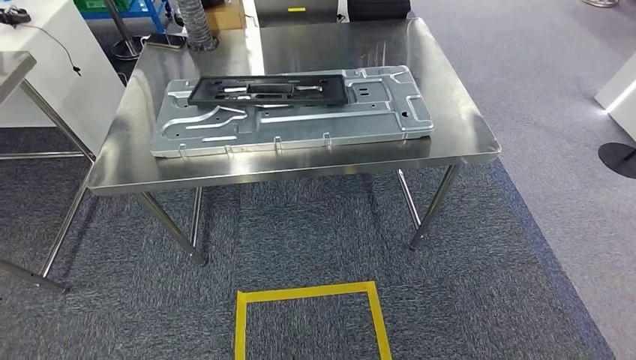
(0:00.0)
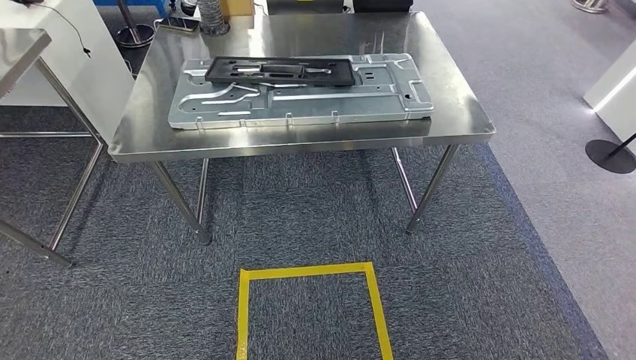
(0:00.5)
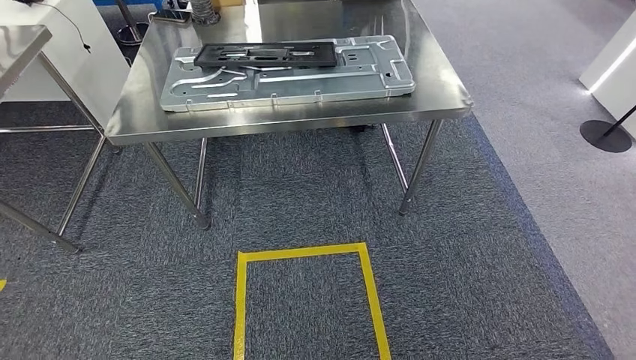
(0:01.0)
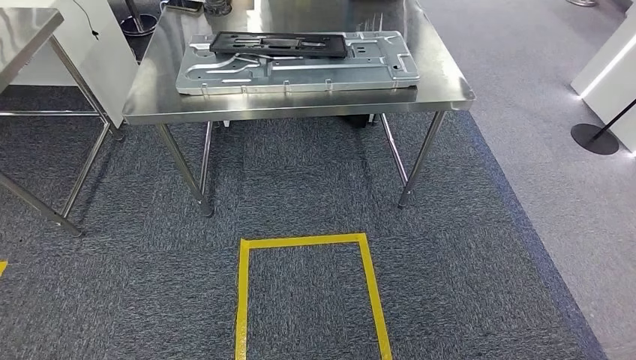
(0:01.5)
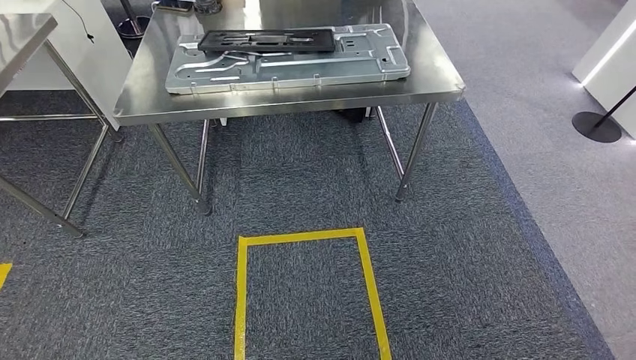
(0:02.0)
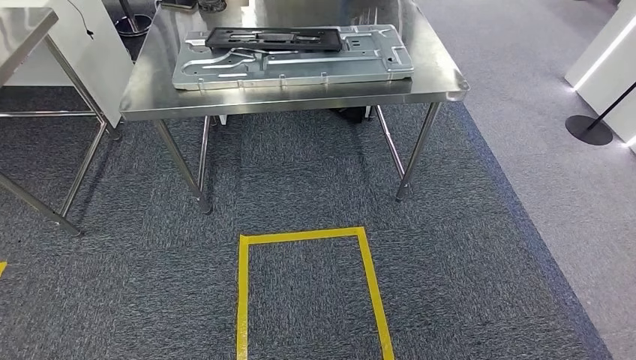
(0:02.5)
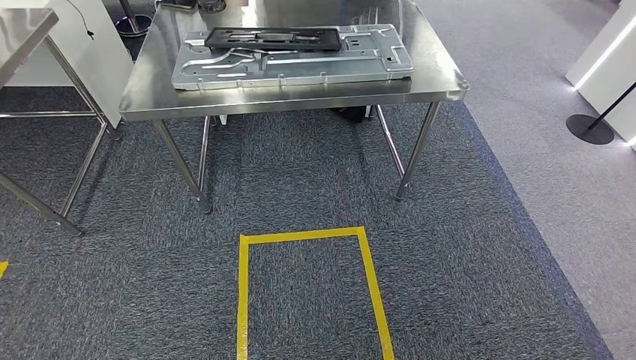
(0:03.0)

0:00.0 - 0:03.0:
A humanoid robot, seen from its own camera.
Step, 0:00.0 - 0:03.0: Move to the initial position of the shelf.
0:01.5 - 0:03.0: The hands move only a little.
